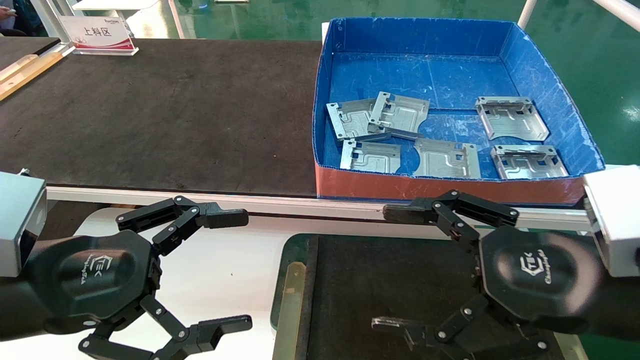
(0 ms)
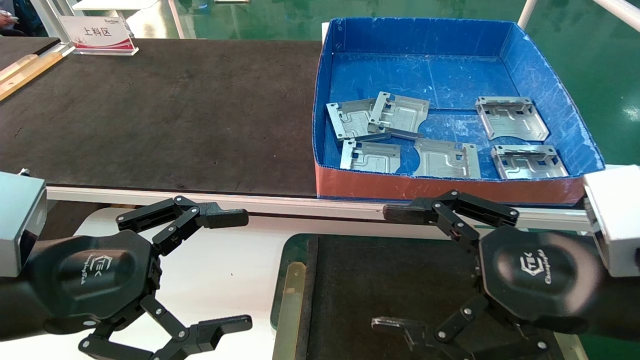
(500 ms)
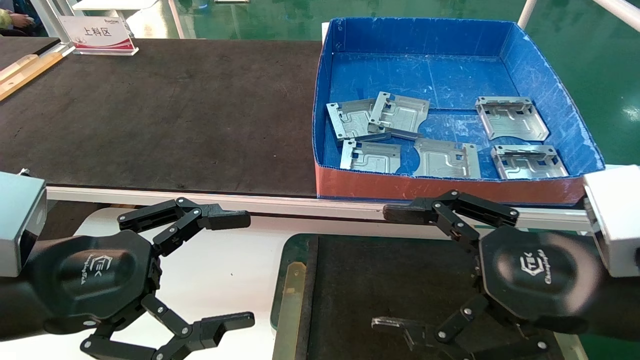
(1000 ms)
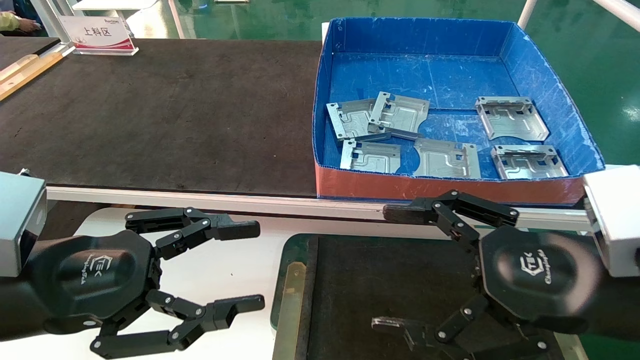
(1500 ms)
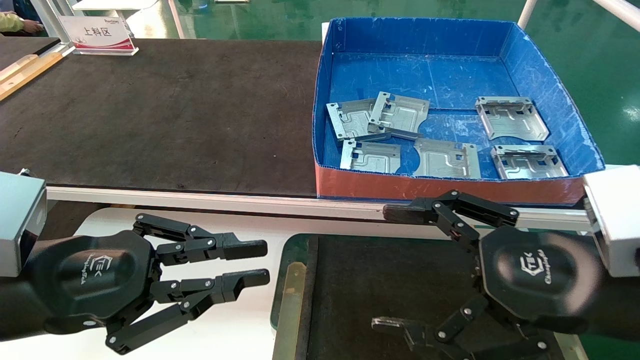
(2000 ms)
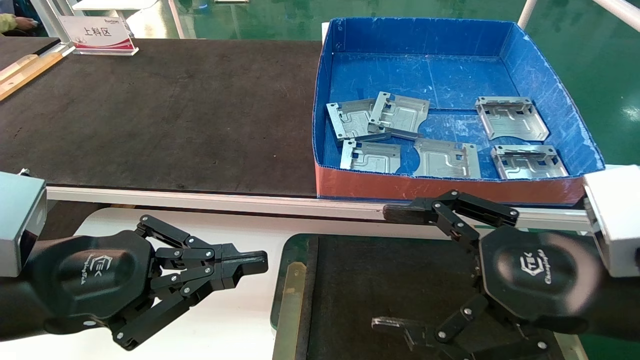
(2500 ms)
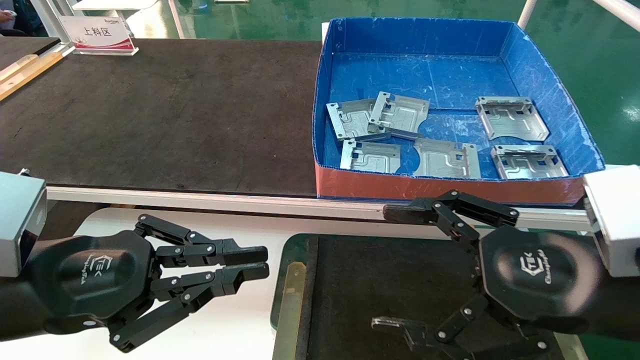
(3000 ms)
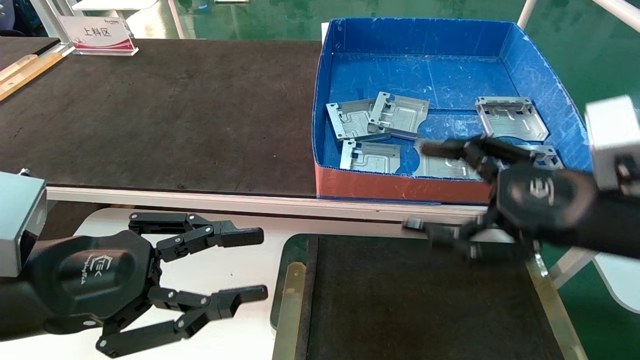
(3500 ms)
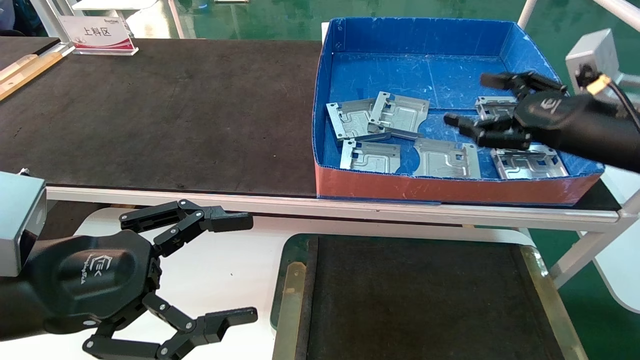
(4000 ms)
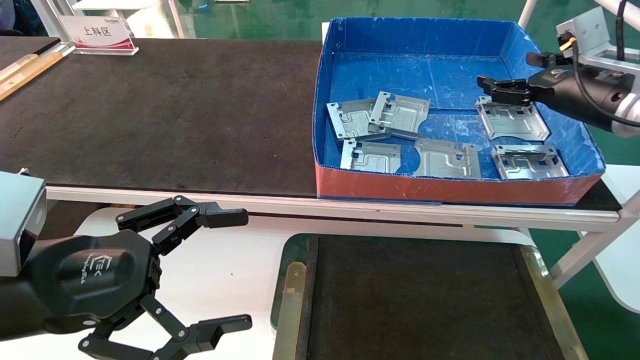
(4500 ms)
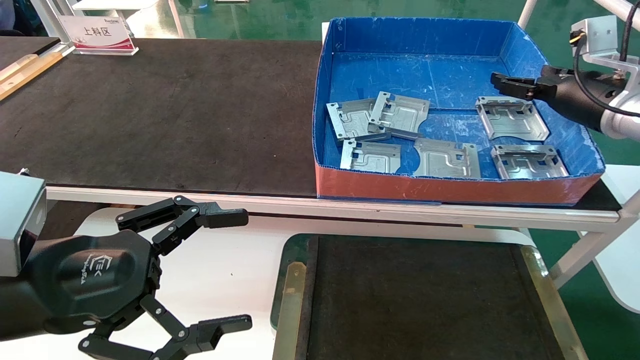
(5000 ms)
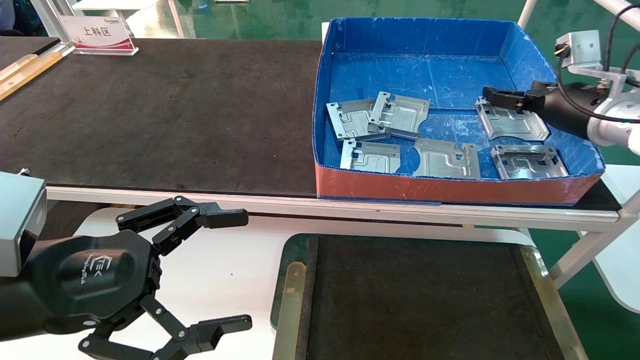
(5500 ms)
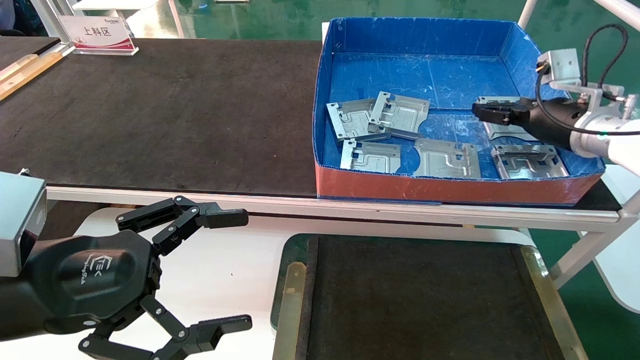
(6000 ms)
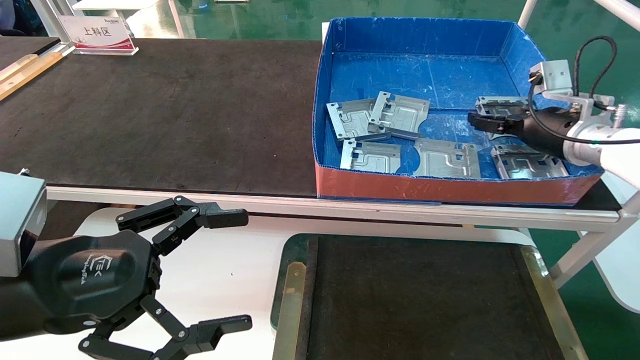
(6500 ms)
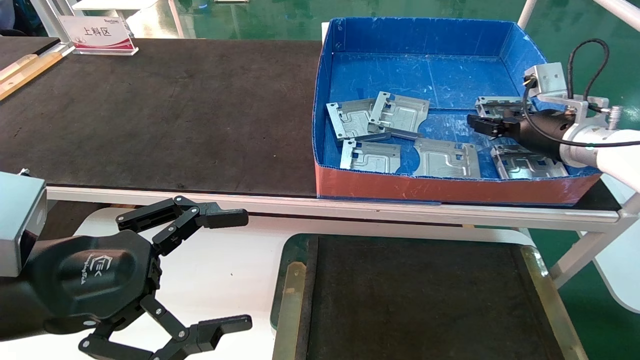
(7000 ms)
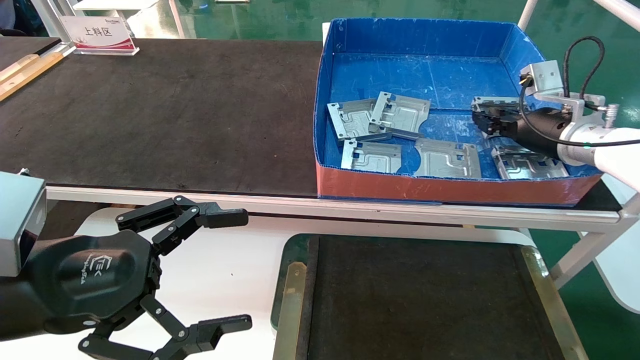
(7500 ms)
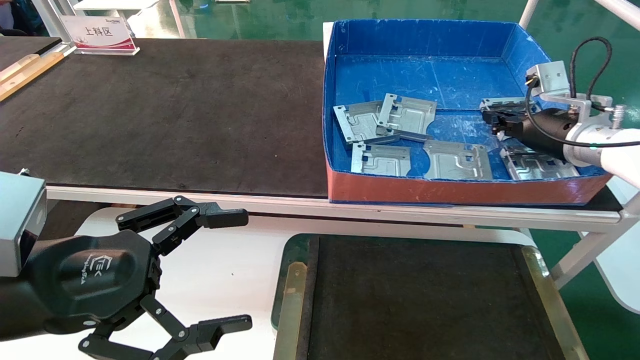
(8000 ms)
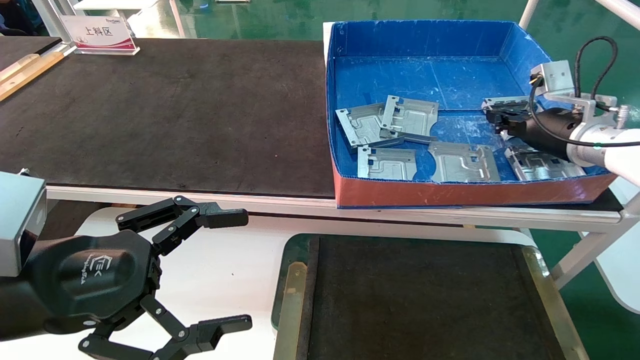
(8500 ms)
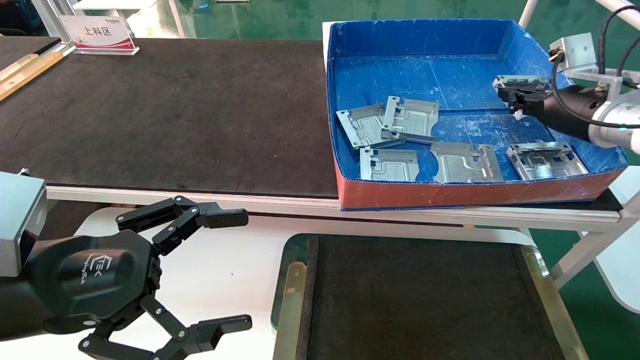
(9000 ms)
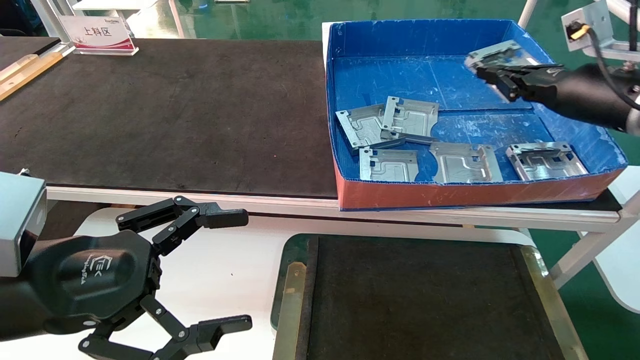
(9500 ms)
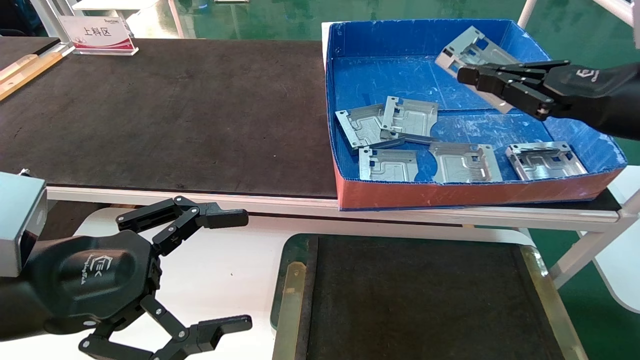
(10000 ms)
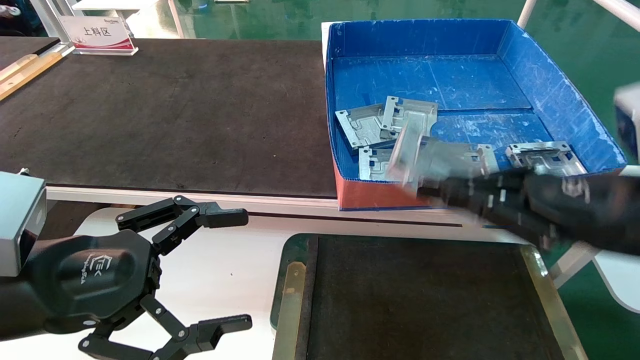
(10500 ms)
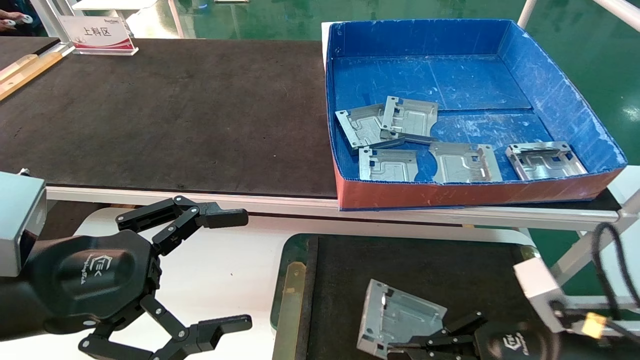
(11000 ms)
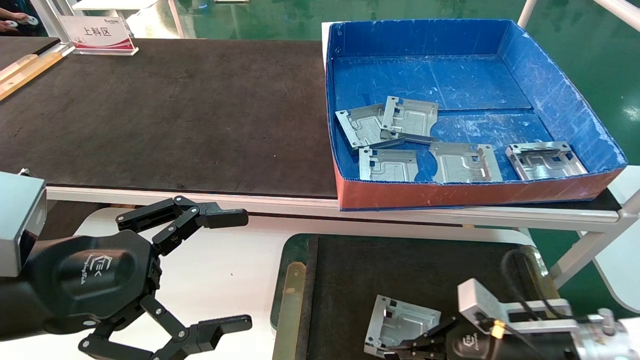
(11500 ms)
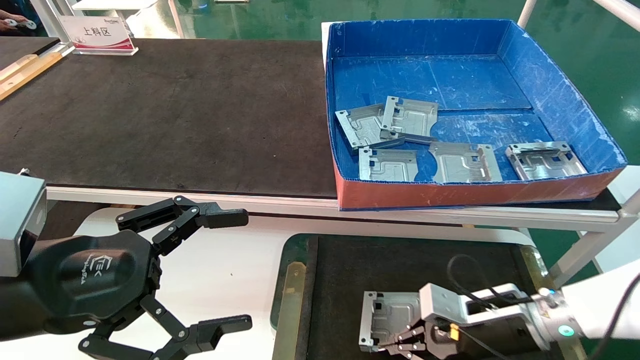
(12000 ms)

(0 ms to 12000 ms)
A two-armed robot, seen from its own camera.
Task of the whole recording: pick up parts and place them into a black container.
Step, 4500 ms - 7500 ms: Pick up the hard drive bracket from the feeding area.
0 ms - 2000 ms: The left gripper closes its fingers.
2000 ms - 4000 ms: The left gripper opens up. The right gripper moves forward, to the right and upward, some 20 cm.
4000 ms - 6000 ms: The right gripper travels forward by approximately 10 cm.
6000 ms - 8000 ms: The right gripper closes its fingers.
8000 ms - 10000 ms: The right gripper shifts approximately 15 cm backward.
10000 ms - 12000 ms: The right gripper moves downward, roughly 25 cm.

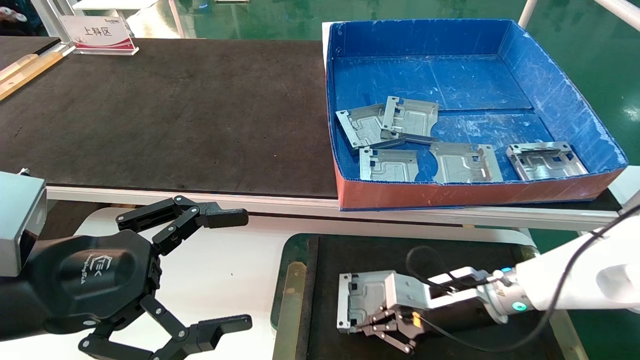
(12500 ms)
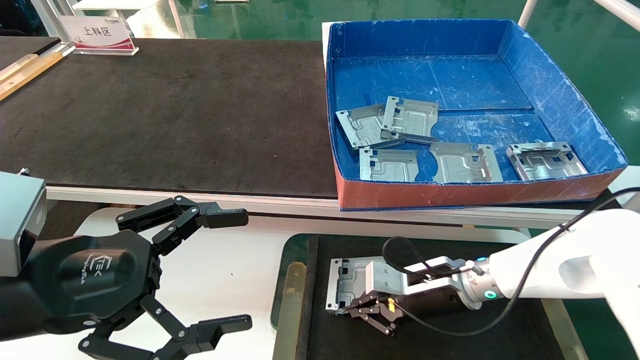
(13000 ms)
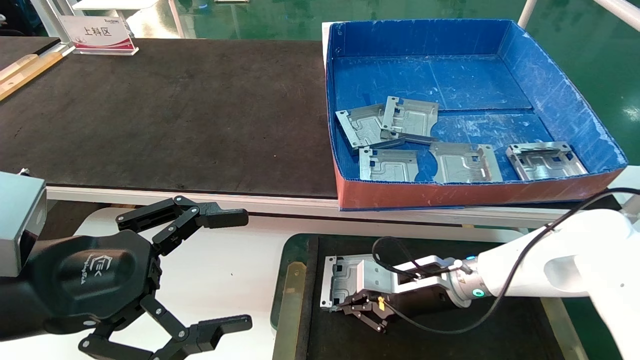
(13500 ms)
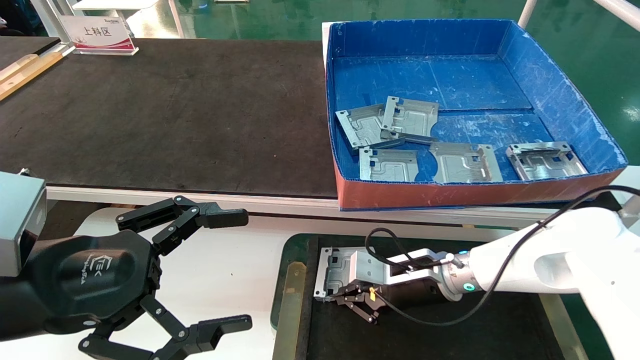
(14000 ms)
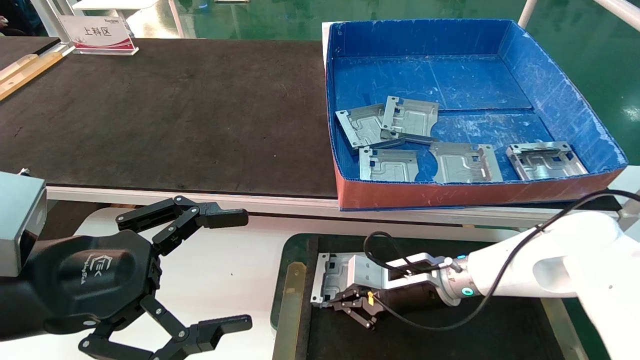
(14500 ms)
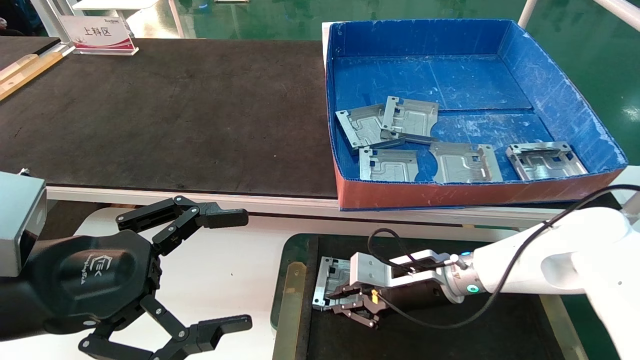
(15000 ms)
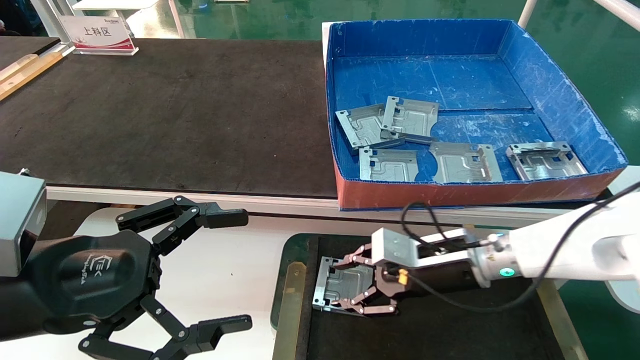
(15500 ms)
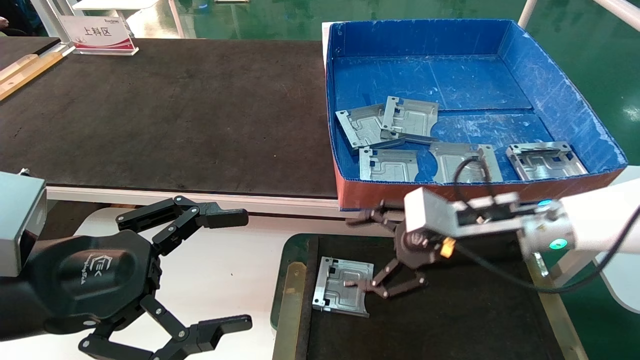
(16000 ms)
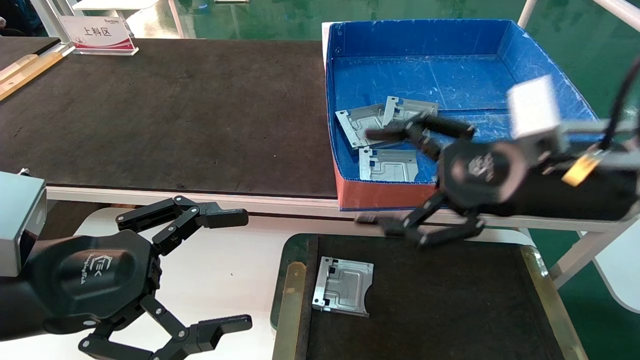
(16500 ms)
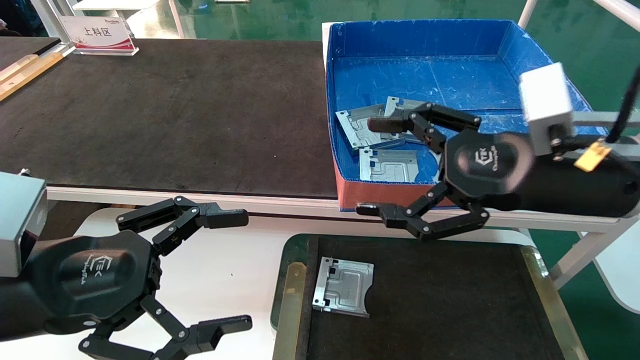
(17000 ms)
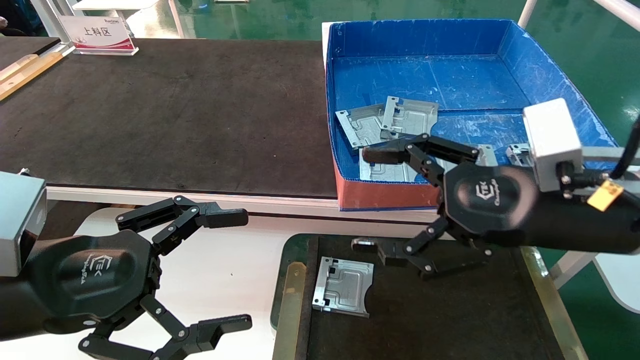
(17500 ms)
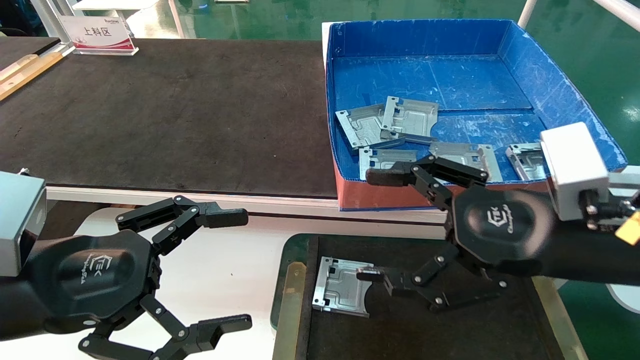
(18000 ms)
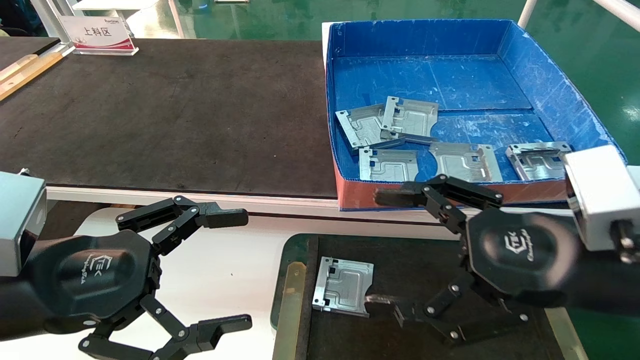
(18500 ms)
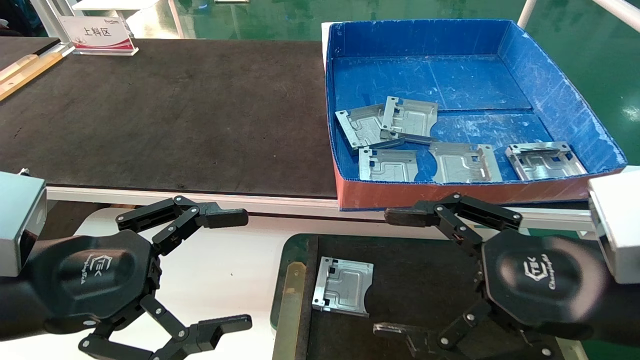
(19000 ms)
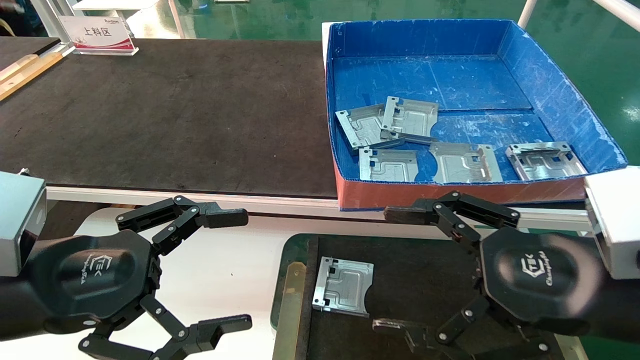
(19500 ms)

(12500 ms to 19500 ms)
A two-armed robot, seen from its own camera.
Task of the whole recording: pick up parts and place them into a black container.
12500 ms - 14500 ms: The right gripper goes about 5 cm to the left.
14500 ms - 16000 ms: The right gripper goes approximately 15 cm upward, backward and to the right, and opens its fingers.
16000 ms - 17500 ms: The right gripper shifts some 10 cm backward and upward.
17500 ms - 19500 ms: The right gripper goes about 5 cm backward.

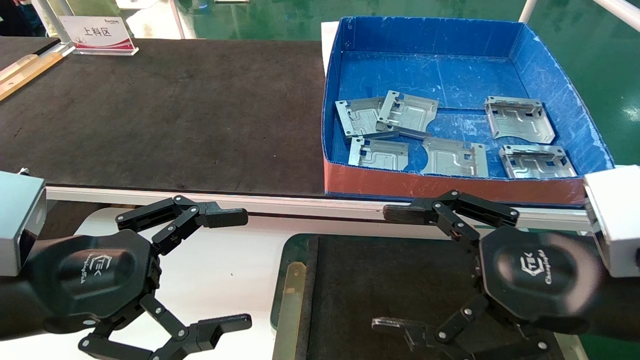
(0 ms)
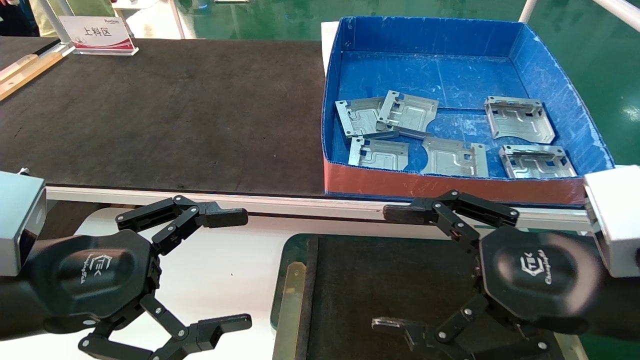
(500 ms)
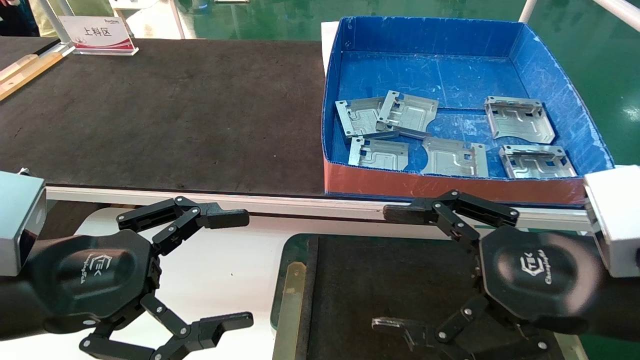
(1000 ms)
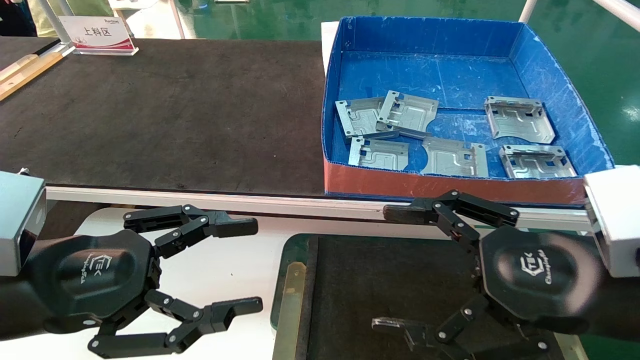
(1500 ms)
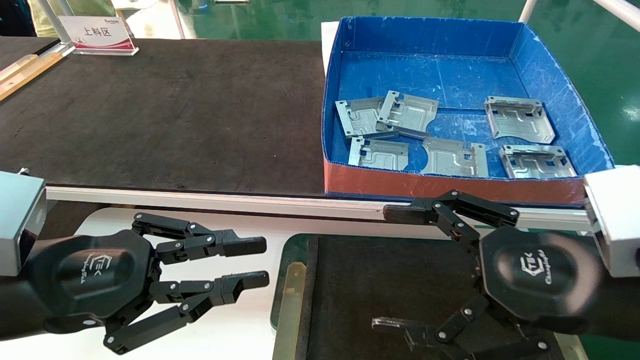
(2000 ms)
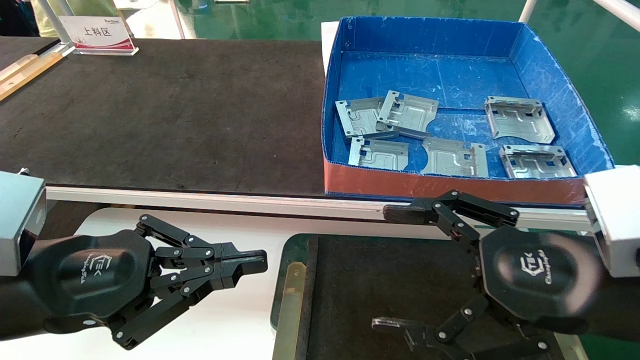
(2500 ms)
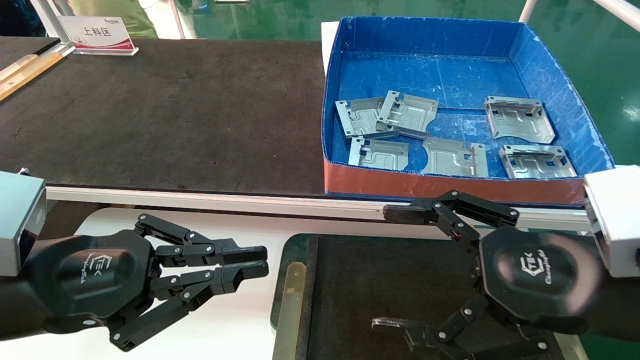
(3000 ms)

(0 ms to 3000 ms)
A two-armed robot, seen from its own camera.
Task of the whole recording: pick up parts and place them into a black container.
0 ms - 1500 ms: Both grippers stay about where they are.
1500 ms - 3000 ms: The left gripper closes up.
